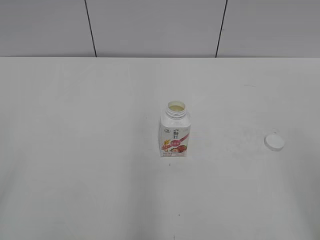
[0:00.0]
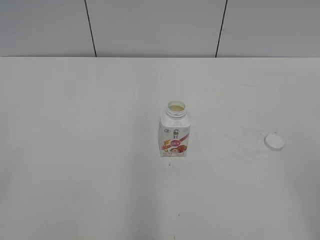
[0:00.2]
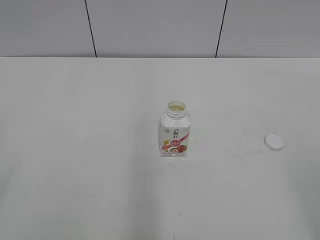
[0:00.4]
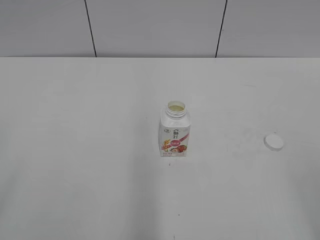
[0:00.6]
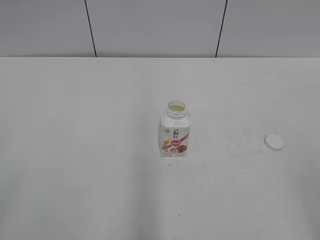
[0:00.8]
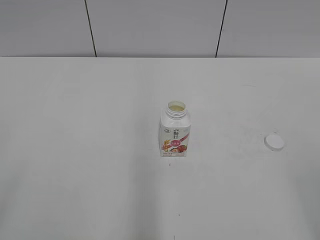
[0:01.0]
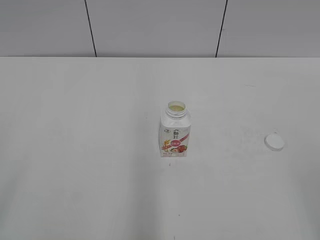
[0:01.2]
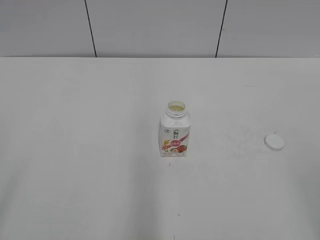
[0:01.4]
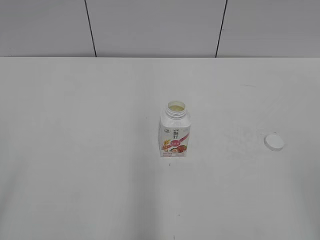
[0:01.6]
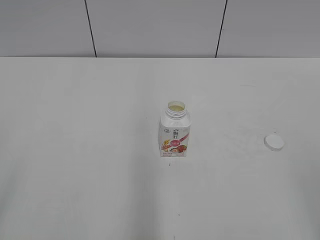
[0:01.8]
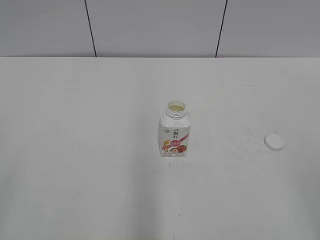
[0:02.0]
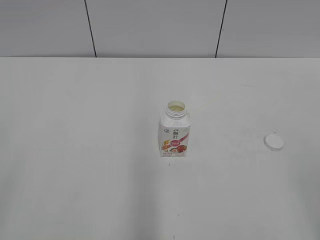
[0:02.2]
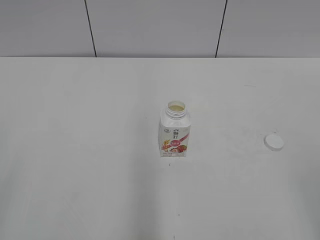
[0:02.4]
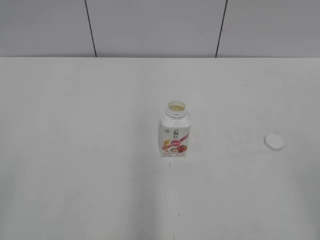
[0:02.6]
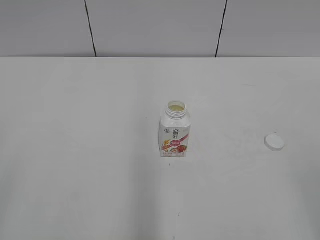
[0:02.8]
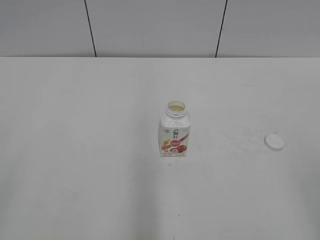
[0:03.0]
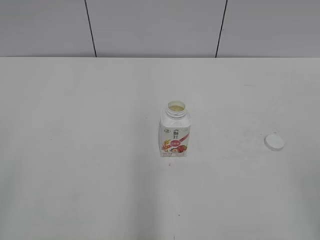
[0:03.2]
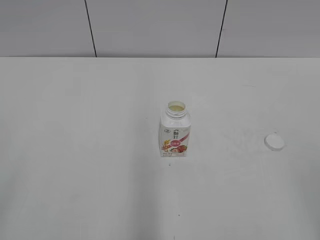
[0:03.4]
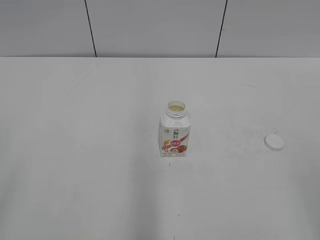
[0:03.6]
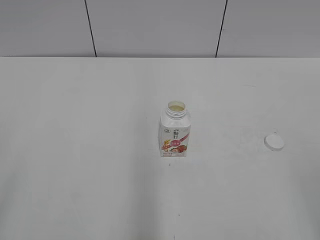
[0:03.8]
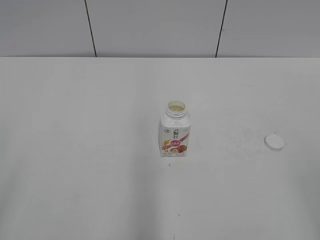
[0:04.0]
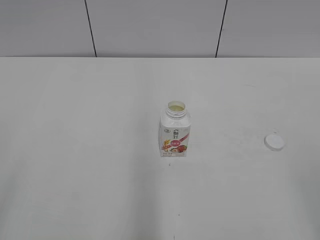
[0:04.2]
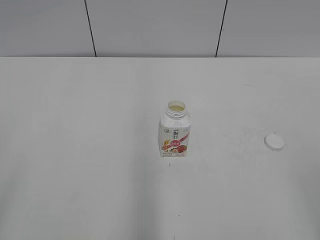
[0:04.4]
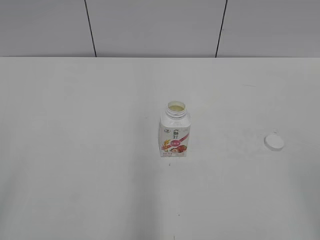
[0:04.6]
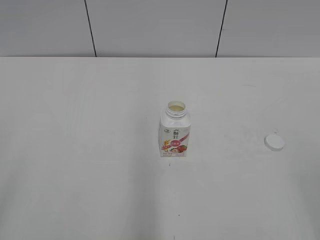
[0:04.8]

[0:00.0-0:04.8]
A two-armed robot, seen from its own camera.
0:03.2 to 0:04.8: Neither gripper changes place.
